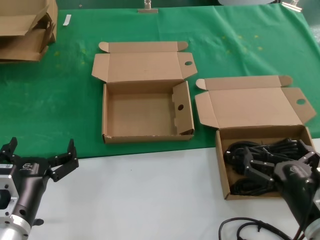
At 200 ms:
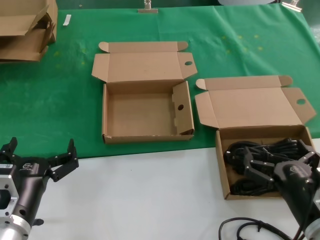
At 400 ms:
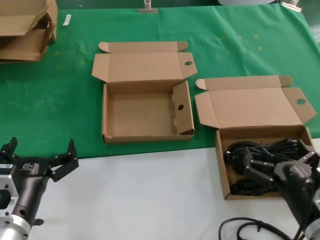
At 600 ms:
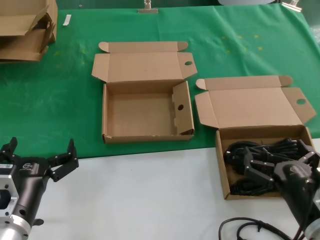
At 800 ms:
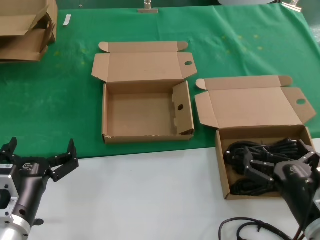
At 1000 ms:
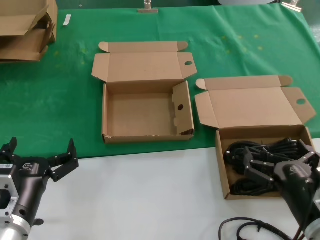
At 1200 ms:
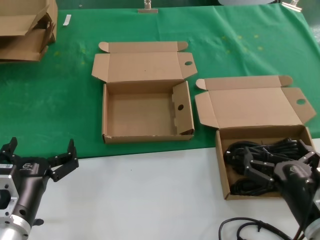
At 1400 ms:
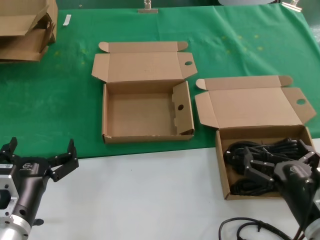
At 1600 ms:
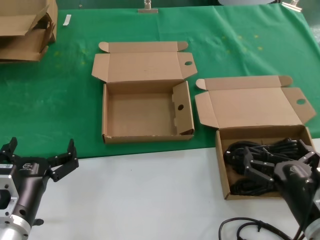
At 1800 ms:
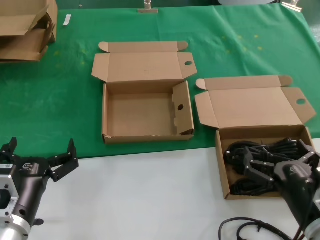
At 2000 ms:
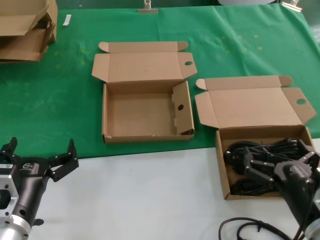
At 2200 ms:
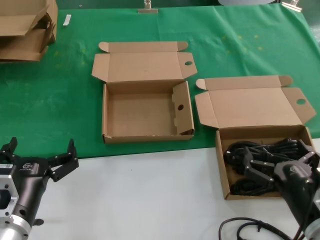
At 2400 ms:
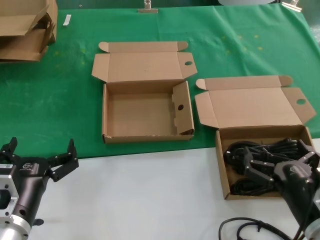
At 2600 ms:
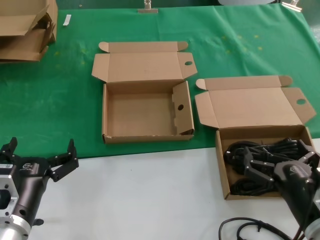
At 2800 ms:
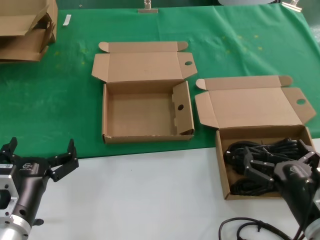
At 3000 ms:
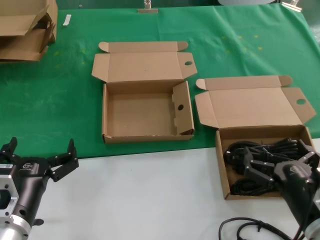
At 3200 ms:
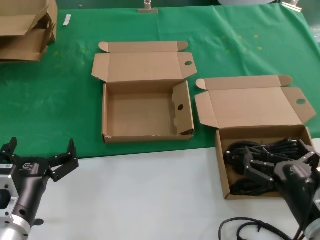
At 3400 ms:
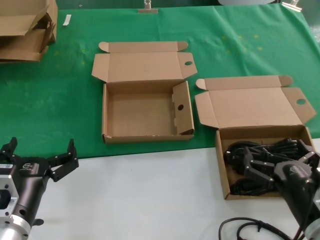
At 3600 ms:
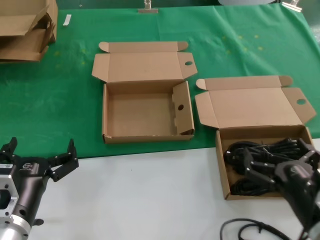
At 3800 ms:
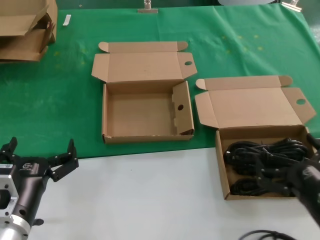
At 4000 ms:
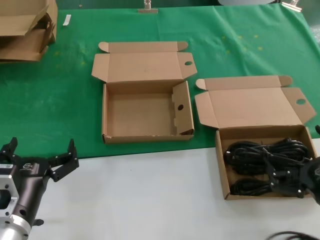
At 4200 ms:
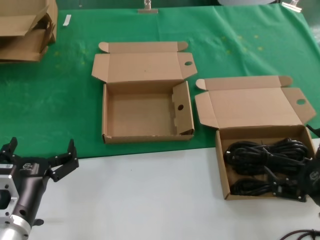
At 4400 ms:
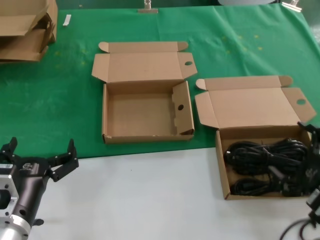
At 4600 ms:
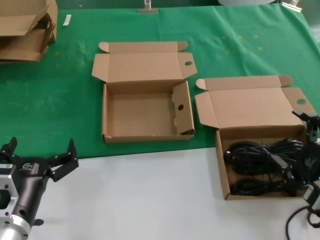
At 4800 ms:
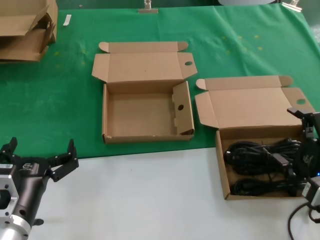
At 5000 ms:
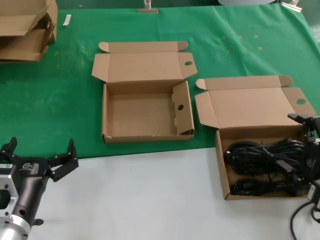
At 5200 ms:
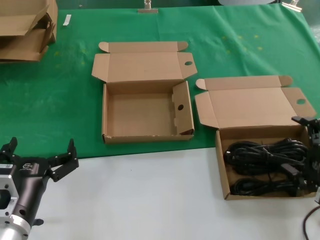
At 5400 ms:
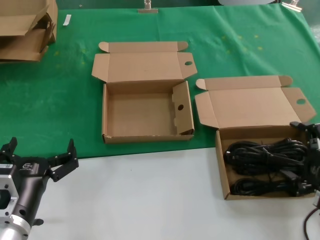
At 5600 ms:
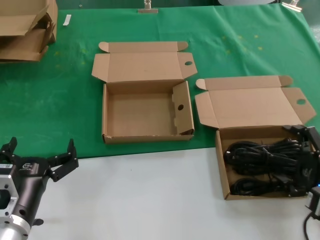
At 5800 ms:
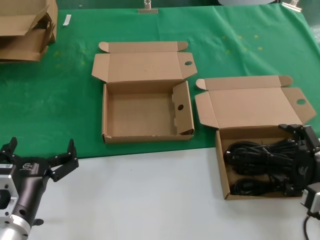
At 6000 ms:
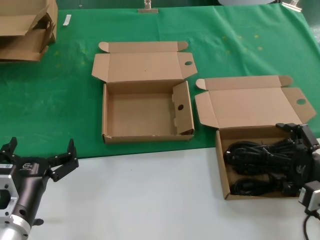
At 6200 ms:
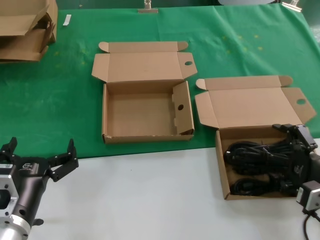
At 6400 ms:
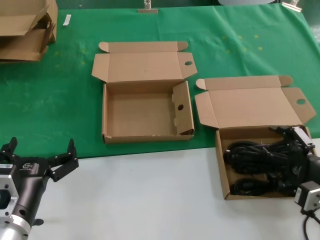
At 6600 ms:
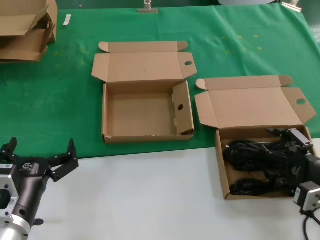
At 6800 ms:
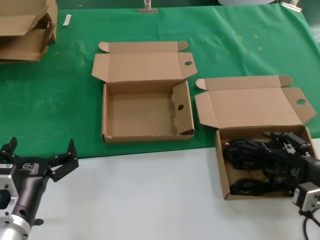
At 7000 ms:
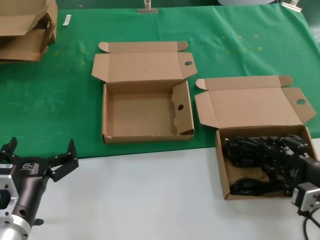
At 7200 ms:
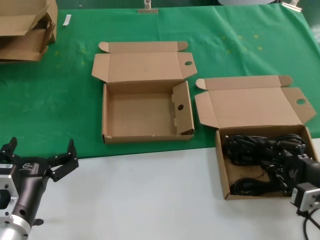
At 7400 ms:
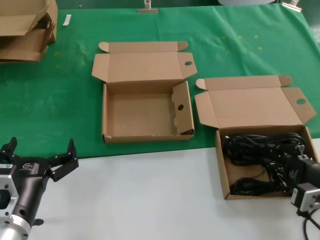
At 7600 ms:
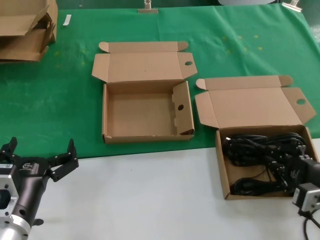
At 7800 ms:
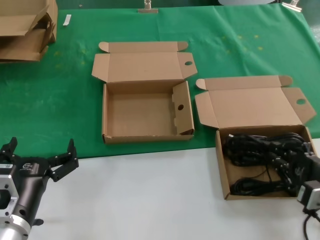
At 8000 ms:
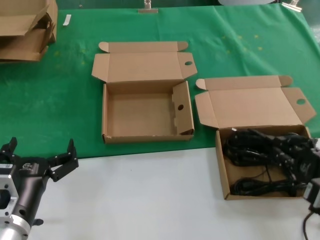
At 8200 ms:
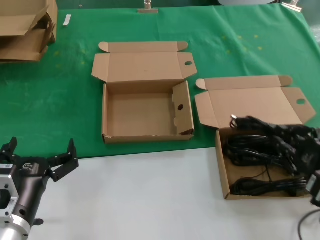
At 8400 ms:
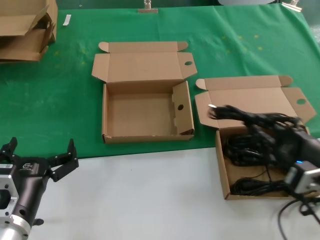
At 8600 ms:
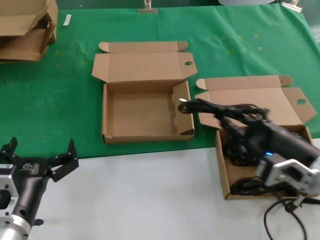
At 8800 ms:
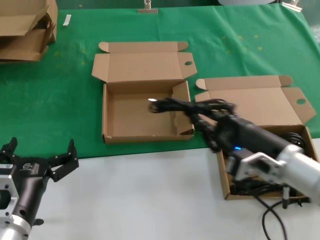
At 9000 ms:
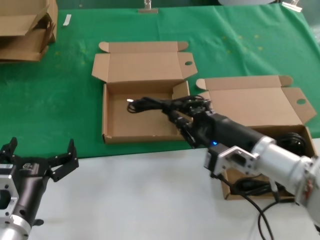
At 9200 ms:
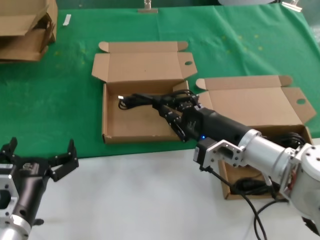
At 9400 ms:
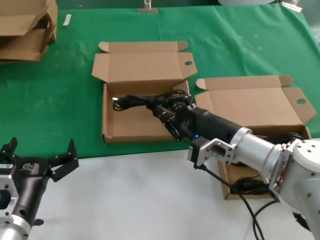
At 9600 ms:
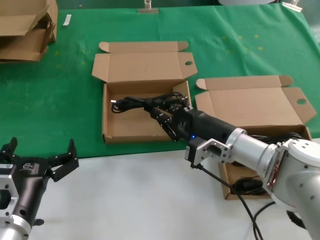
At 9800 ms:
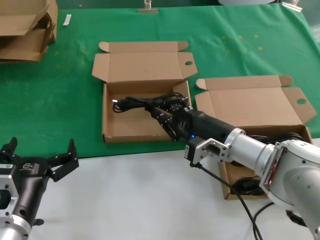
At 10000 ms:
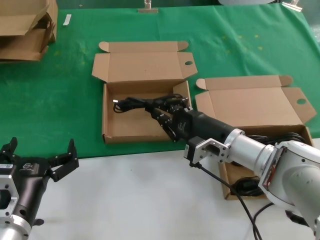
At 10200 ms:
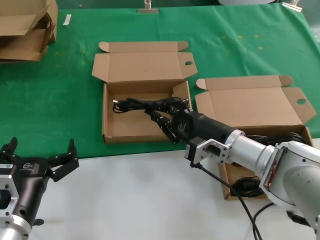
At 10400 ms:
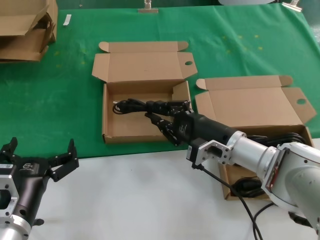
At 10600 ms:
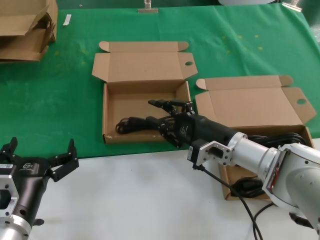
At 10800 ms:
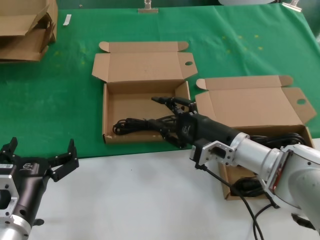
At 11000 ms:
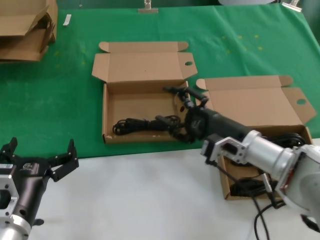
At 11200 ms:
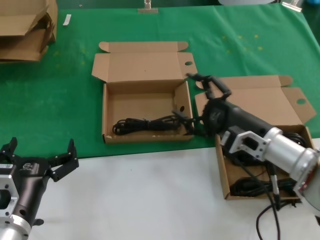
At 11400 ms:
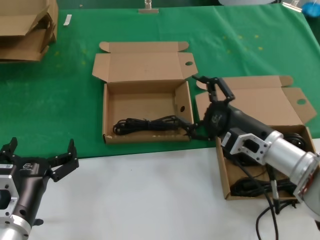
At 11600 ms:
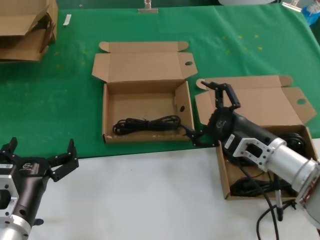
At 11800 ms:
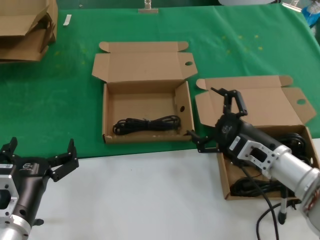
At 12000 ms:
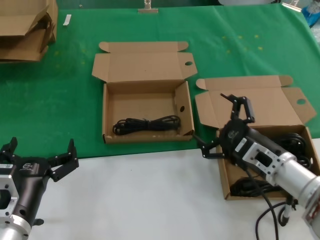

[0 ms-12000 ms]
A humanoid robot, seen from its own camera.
Task of the whole recording: take the parts from the box containing them and put them into an empty box.
Step, 0 ms to 7000 ms: Grasp the data cable.
Step, 7200 ms to 10600 ms: Place the data cable in the another box.
0 ms to 3000 ms: The two hands keep their place.
3000 ms to 4400 ms: The right hand moves to the right, about 10 cm.
4400 ms to 6000 ms: The right hand travels forward by roughly 5 cm.
6000 ms to 7600 ms: The hands stay close to where they were, moving slightly.
7600 ms to 9000 ms: The right hand heads to the left and forward, covering approximately 15 cm.
9000 ms to 10400 ms: The right hand goes approximately 10 cm forward.
10400 ms to 12000 ms: The right hand travels to the right and backward by some 10 cm.

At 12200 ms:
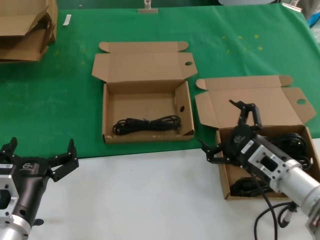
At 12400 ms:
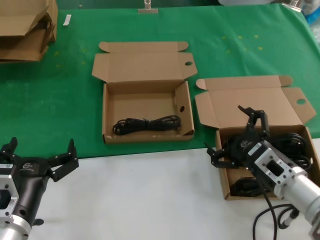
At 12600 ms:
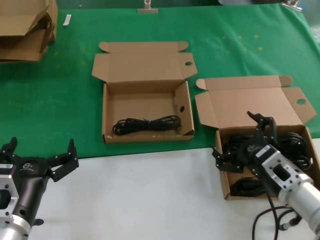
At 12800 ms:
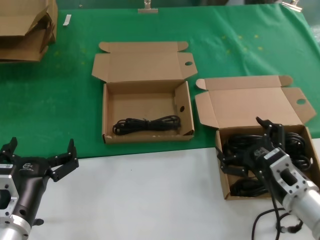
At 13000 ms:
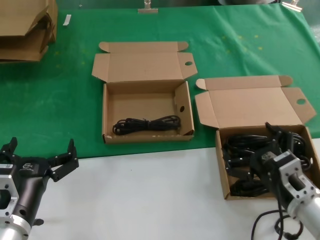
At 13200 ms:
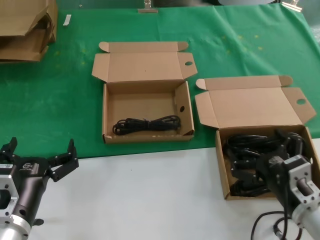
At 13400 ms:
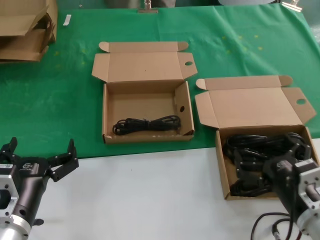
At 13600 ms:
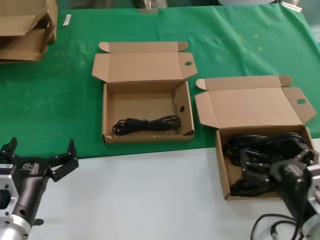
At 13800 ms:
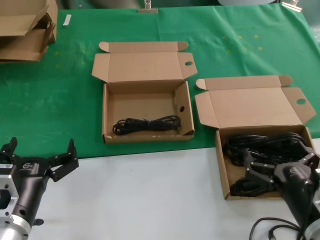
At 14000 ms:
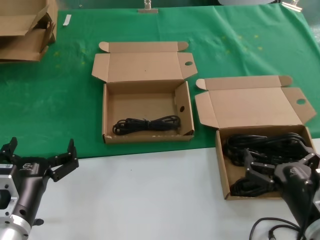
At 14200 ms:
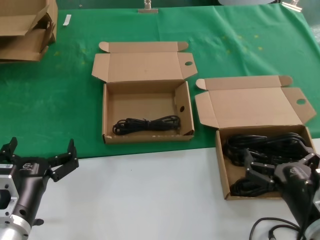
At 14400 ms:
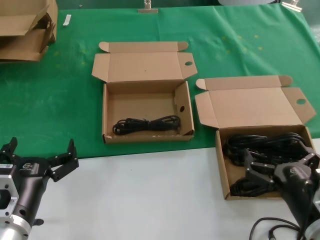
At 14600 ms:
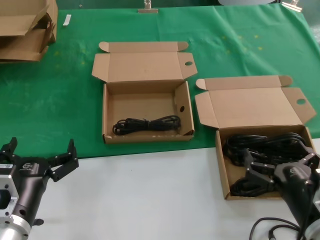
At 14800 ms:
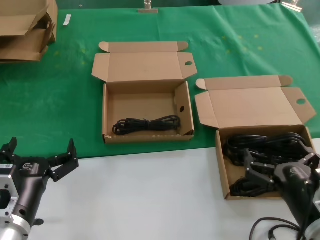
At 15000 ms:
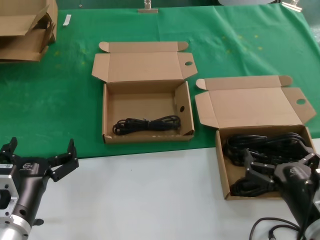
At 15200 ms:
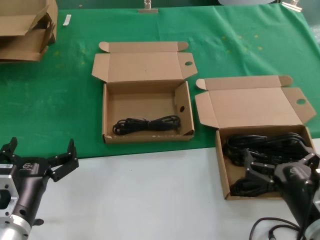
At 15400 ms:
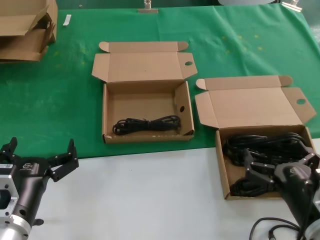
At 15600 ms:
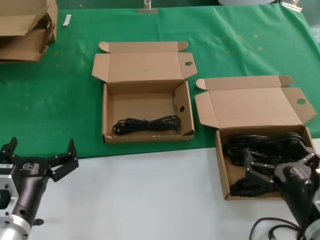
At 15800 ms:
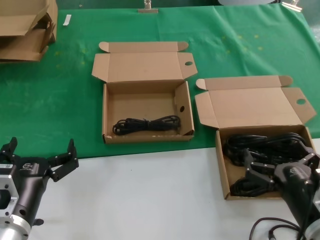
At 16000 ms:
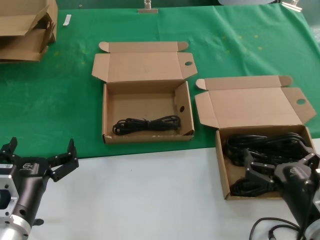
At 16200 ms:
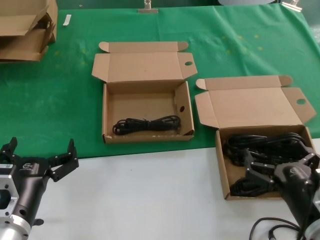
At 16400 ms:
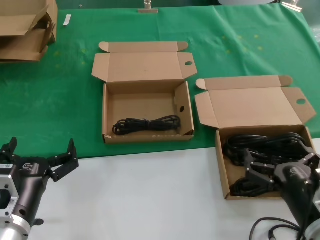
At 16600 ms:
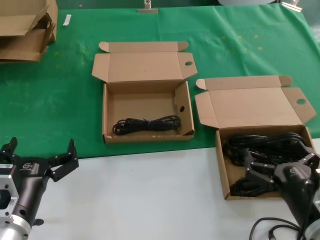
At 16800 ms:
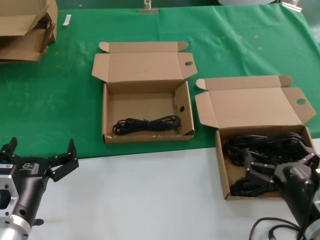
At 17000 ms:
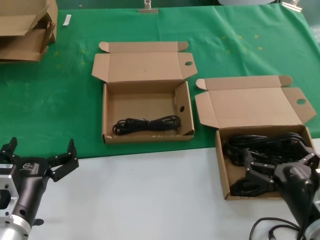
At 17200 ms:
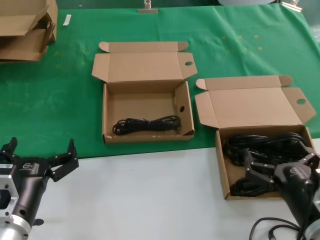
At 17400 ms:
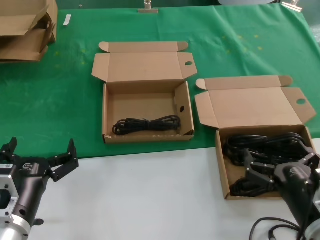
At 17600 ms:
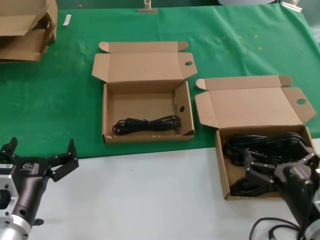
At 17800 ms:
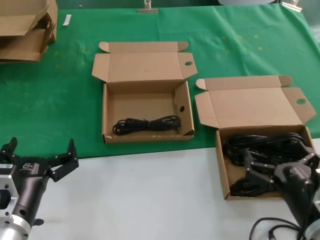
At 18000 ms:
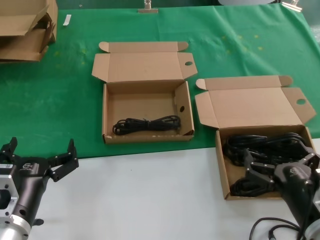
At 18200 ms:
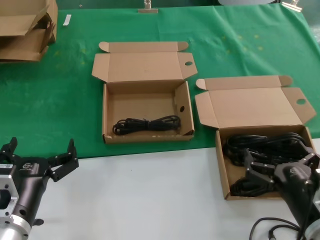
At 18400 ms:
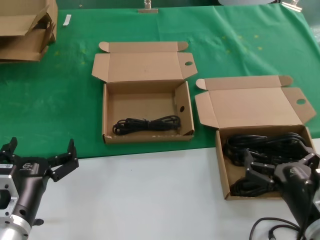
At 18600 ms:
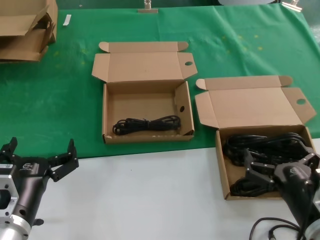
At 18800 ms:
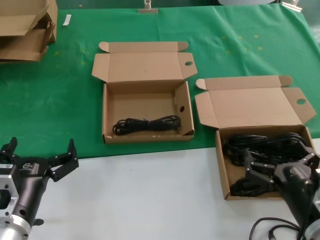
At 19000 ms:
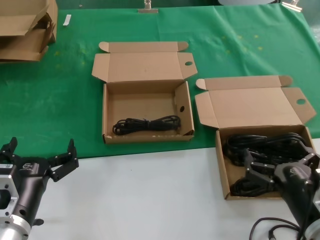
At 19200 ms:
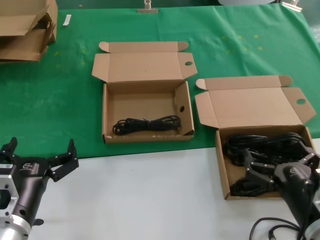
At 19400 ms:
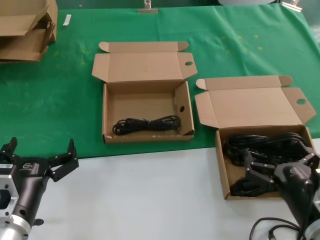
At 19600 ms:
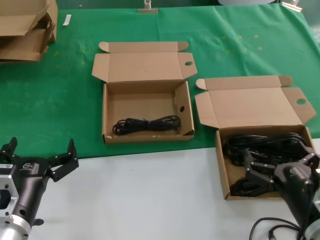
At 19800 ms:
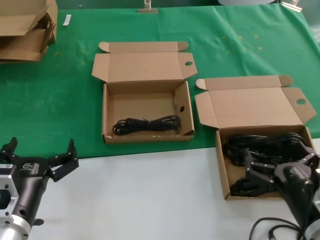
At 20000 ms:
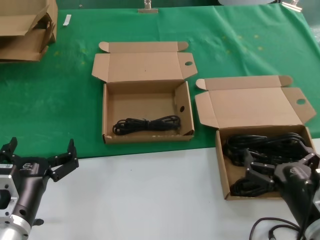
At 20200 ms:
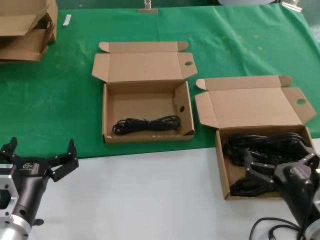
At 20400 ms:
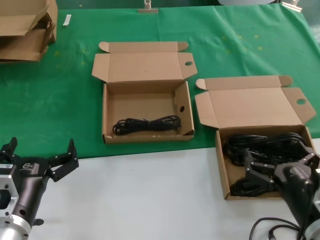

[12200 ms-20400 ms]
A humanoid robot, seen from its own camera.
Task of the whole recording: take the parts from the box containing them and put them into an empty box.
12200 ms to 13800 ms: The right hand shifts approximately 15 cm backward.
13800 ms to 20400 ms: Neither hand changes place.
